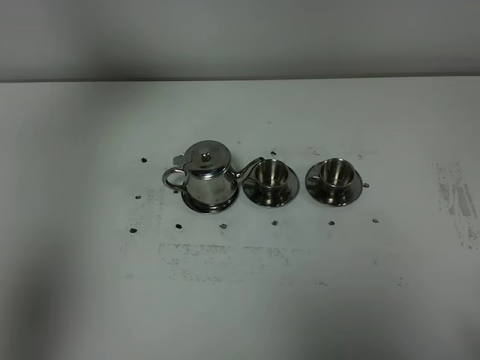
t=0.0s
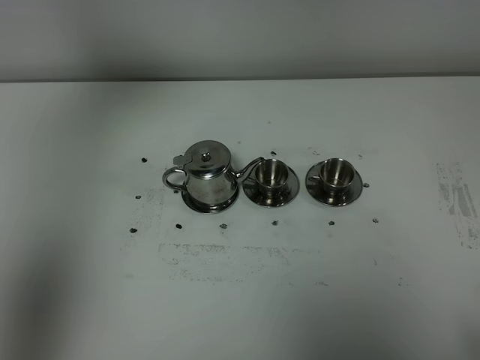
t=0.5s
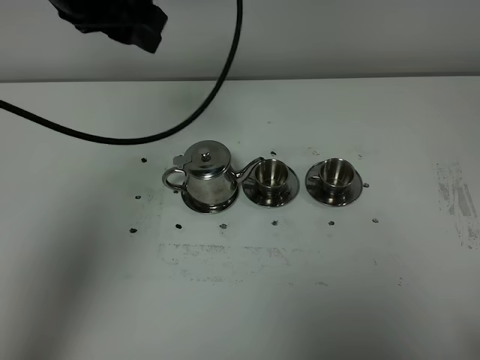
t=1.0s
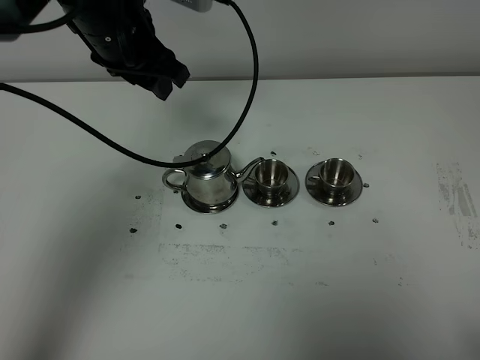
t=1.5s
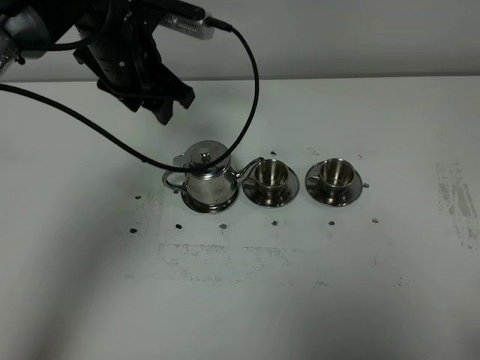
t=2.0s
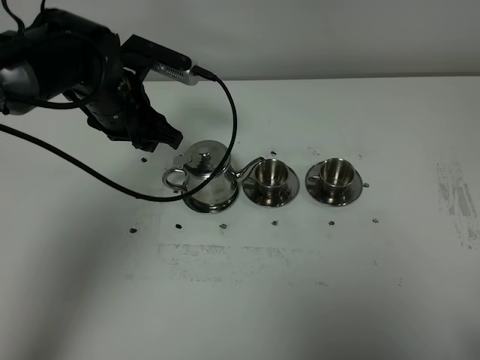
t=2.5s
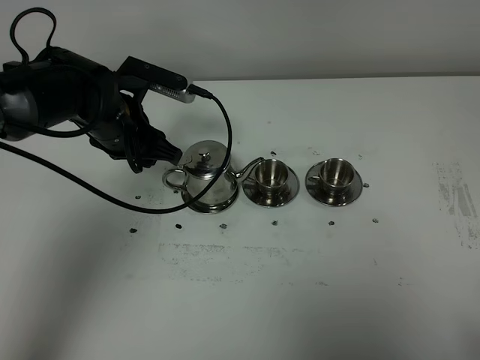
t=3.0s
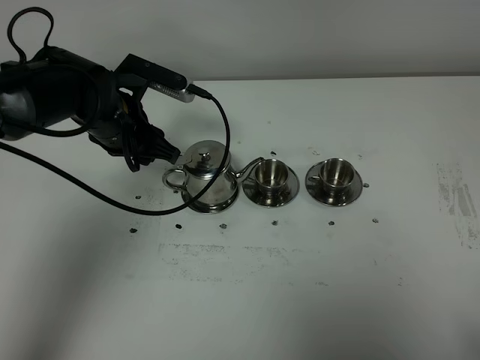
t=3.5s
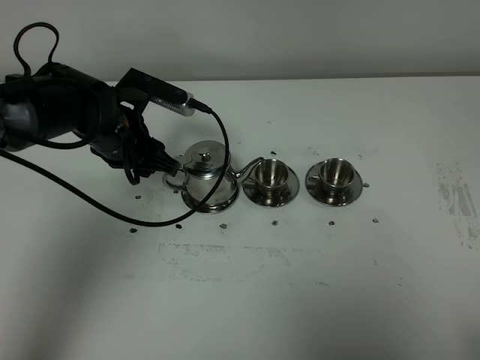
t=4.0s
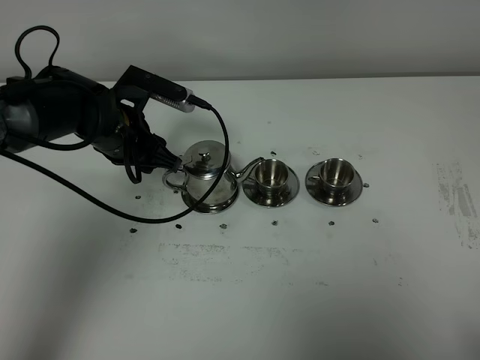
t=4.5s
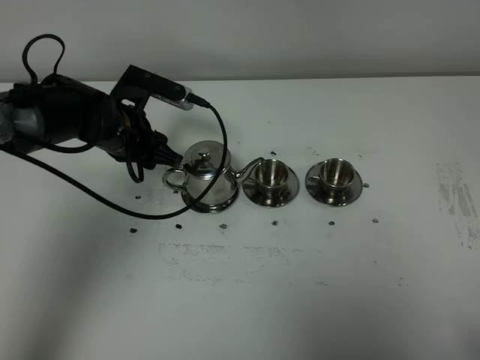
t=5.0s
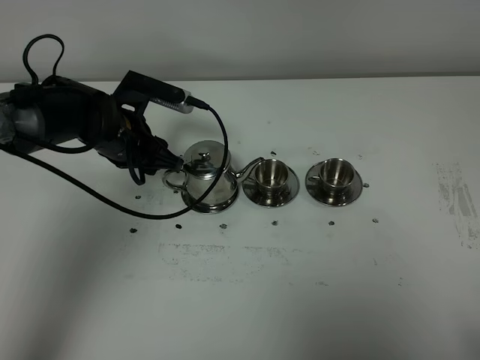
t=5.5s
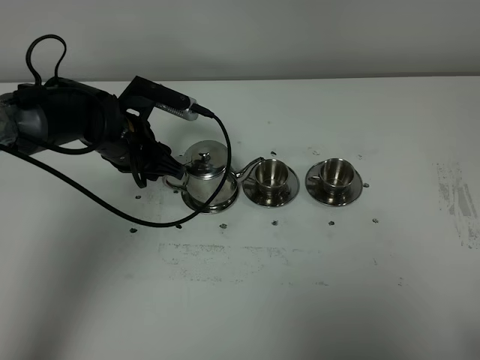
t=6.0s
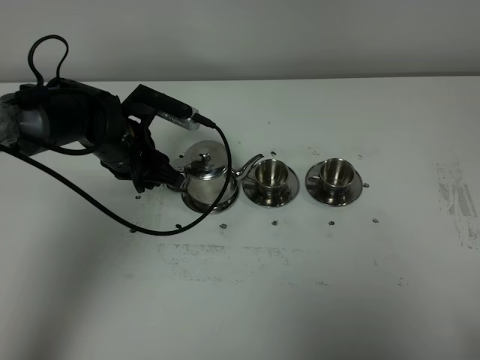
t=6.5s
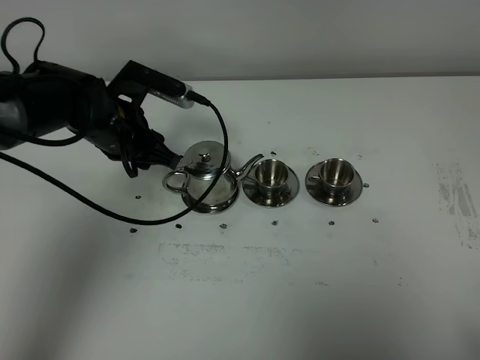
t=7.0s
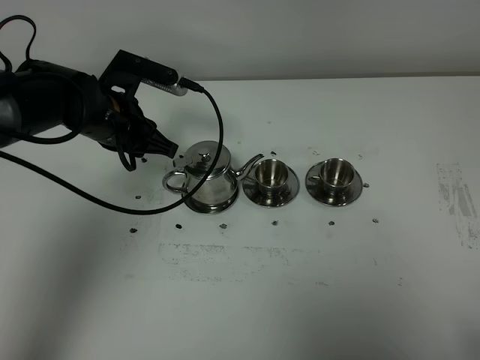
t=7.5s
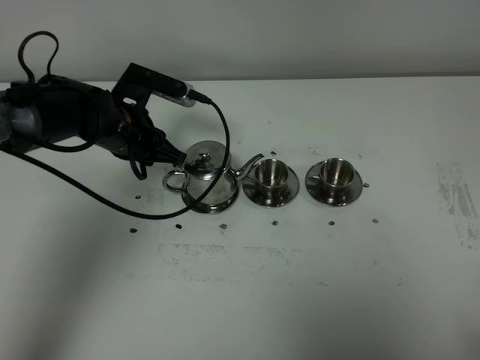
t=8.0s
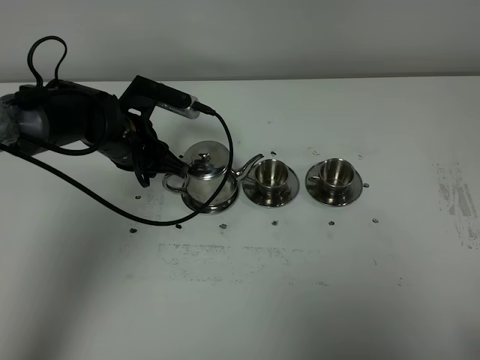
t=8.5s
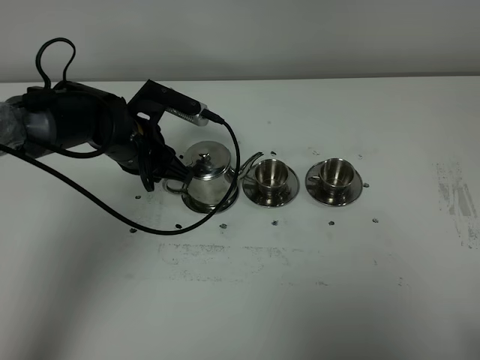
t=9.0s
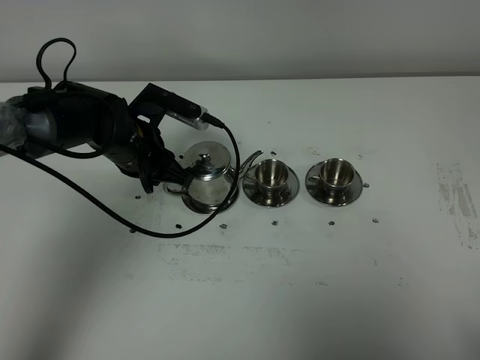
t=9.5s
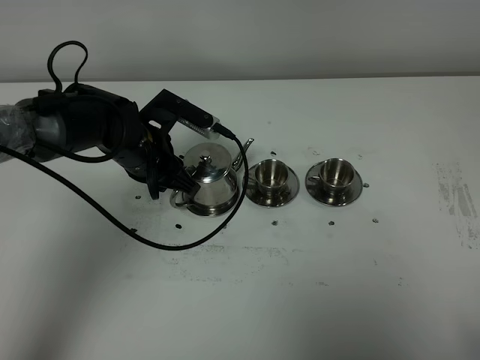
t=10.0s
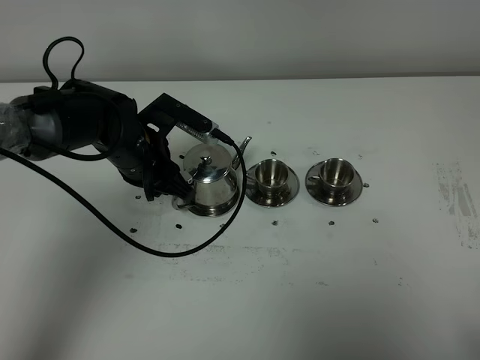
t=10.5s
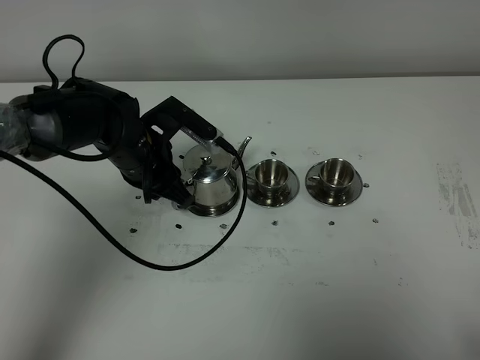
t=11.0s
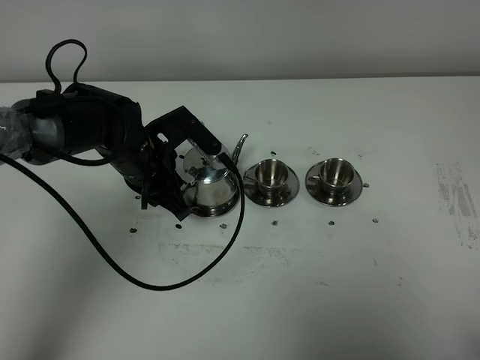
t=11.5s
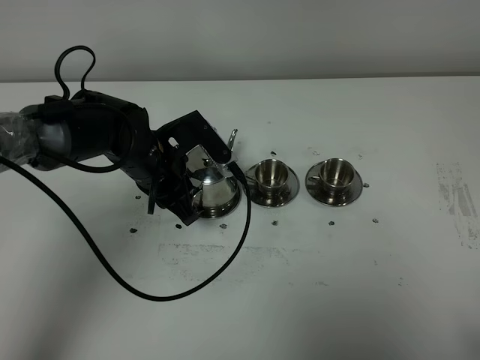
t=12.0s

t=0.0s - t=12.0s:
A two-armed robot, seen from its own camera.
Task of the whole recording: grasp the stainless steel teapot and pour the tea into the two stainless steel teacups one by one, put the stainless steel teapot back in its original place.
t=0.0s - t=2.0s: The left gripper goes some 30 cm downward, to the right and forward.
t=2.0s - t=4.0s: The left gripper moves downward, approximately 10 cm.
t=4.0s - t=6.0s: The grippers make only small movements.
t=6.0s - t=8.0s: The left gripper closes.
t=8.0s - t=10.0s: The grippers move only a little.

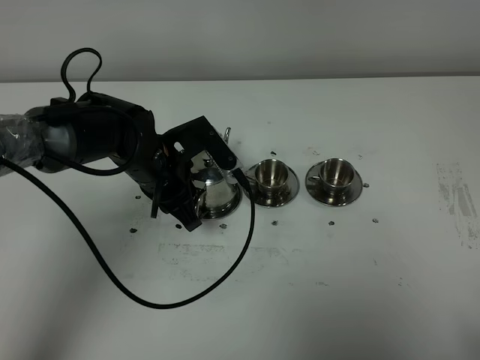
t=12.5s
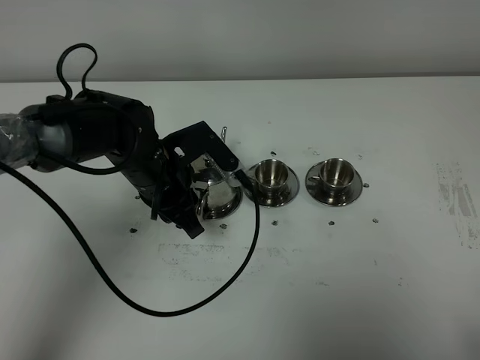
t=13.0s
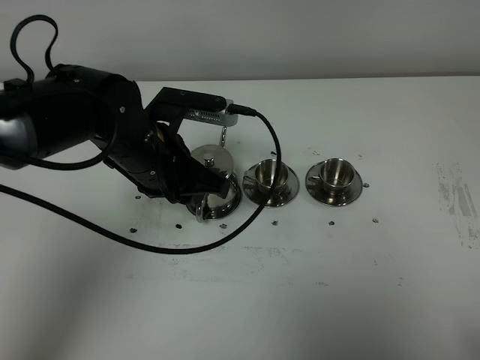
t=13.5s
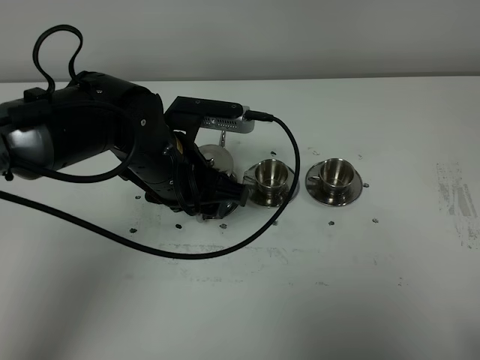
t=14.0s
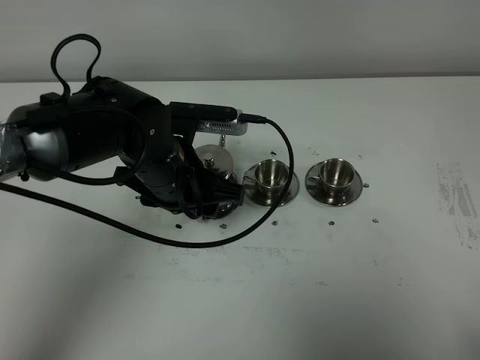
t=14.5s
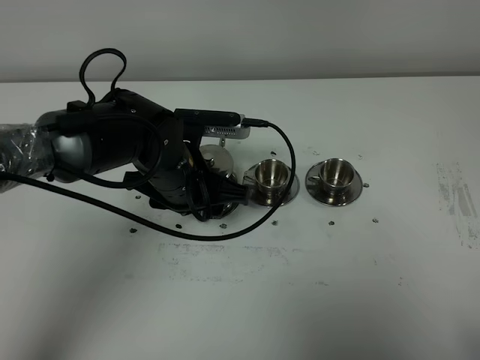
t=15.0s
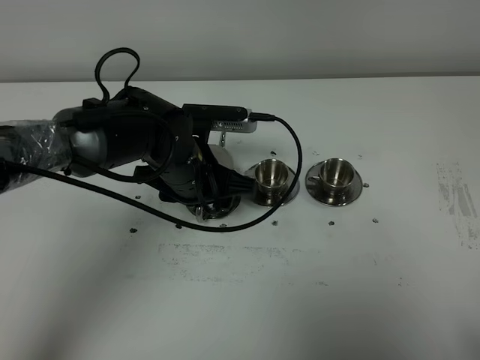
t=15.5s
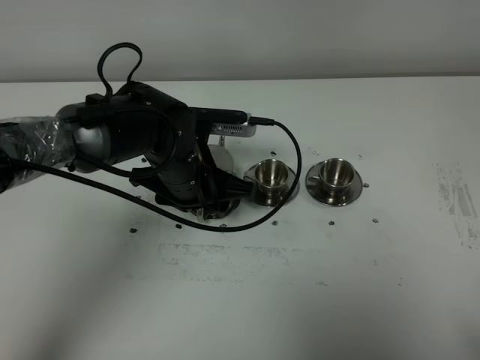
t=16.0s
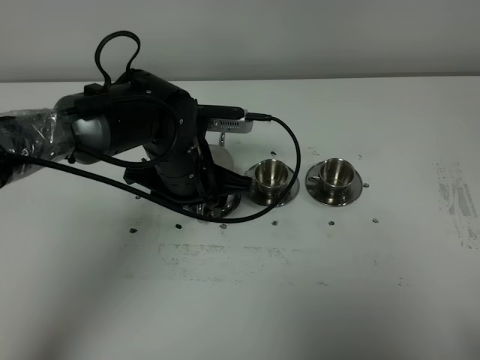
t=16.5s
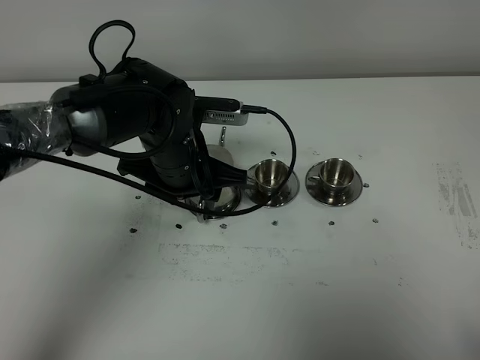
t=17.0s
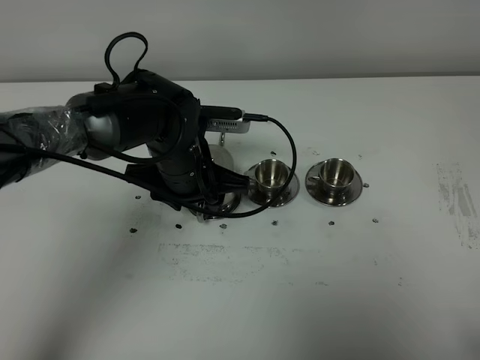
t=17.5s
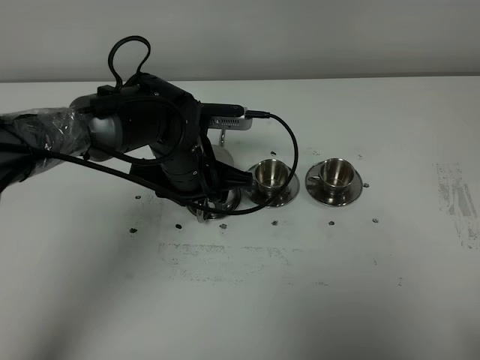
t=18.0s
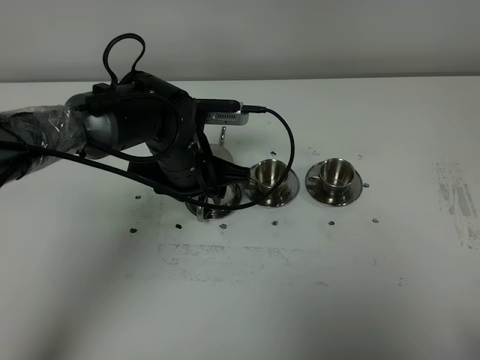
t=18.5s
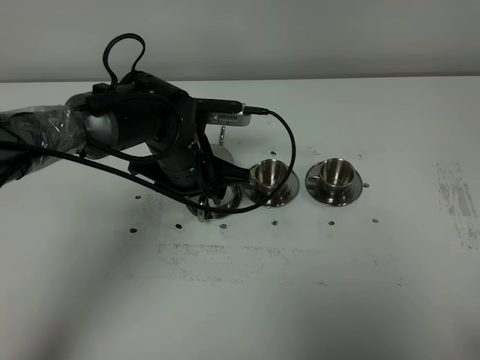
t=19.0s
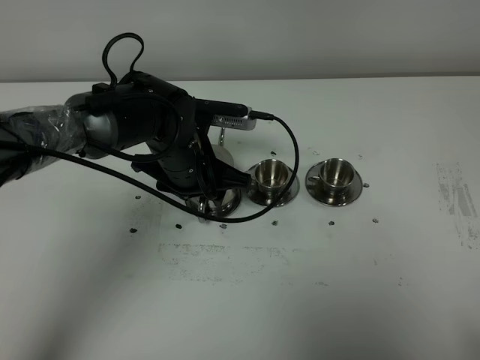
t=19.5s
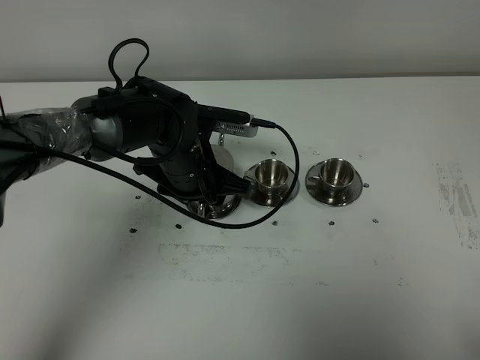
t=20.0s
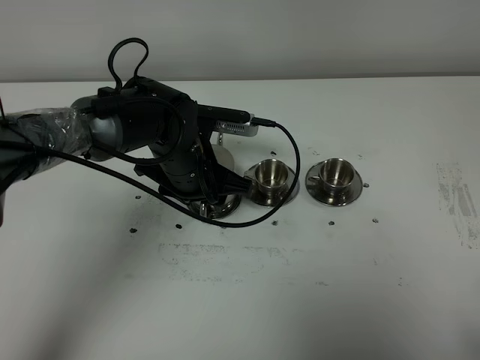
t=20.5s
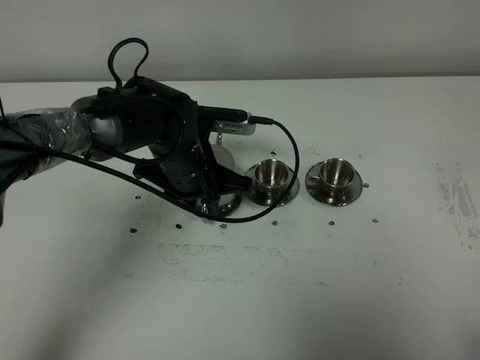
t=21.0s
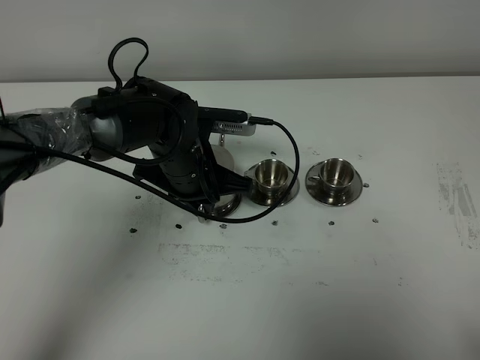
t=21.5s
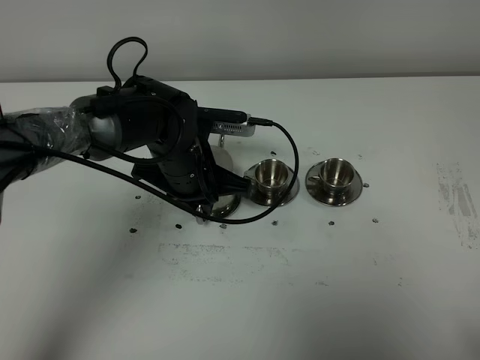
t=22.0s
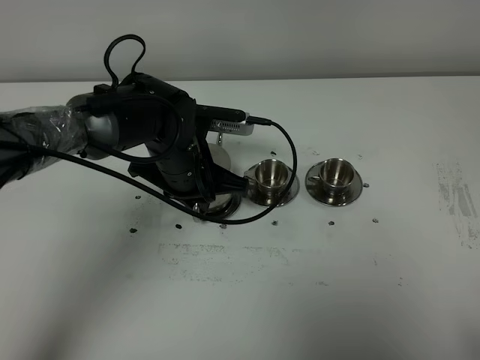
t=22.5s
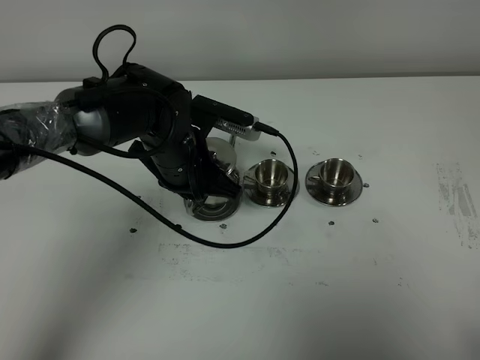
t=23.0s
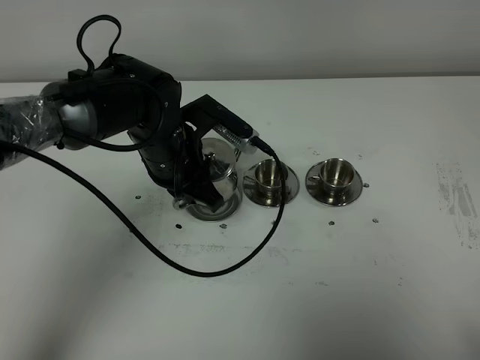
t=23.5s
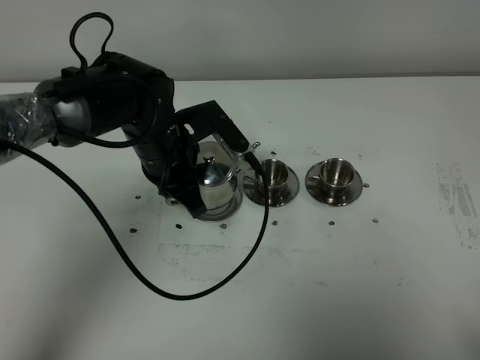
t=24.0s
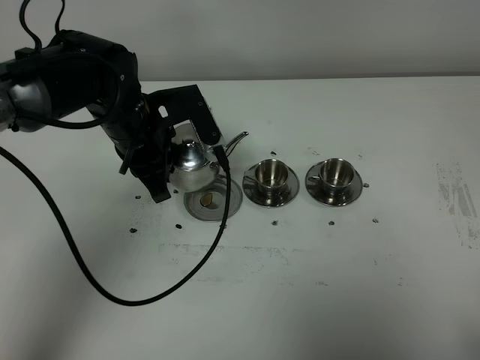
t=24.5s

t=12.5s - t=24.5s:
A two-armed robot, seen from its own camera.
Task of the whole recording: grasp the stainless steel teapot and pour the tea into the two stainless steel teacups one by one, put the stainless steel teapot back in its original place.
Step, t=12.5s - t=22.5s: Pick up the teapot with the left gripper.
t=12.5s - t=14.5s: The left gripper ends up some 5 cm from where it was, and opens up.
t=14.5s - t=18.5s: The grippers move only a little.
t=18.5s - t=20.5s: The grippers move only a little.
t=20.5s - t=22.5s: The left gripper closes.
t=22.5s - t=24.5s: The left gripper is displaced to the left by about 5 cm.

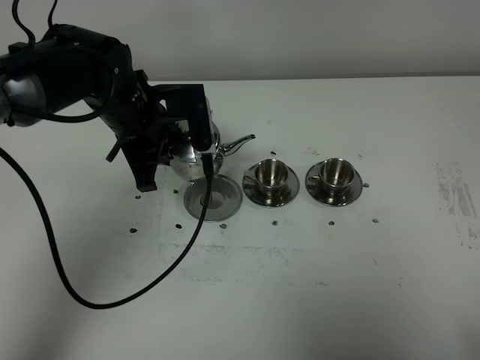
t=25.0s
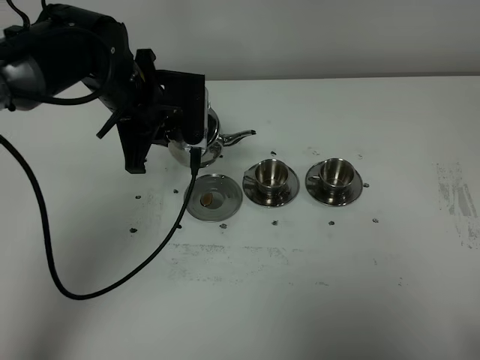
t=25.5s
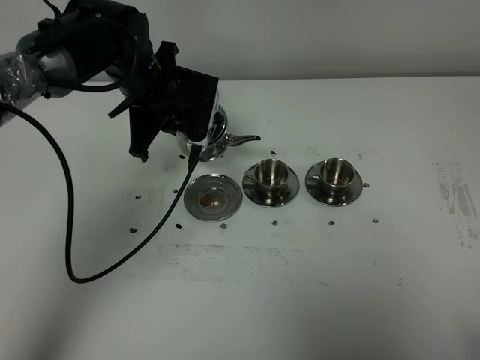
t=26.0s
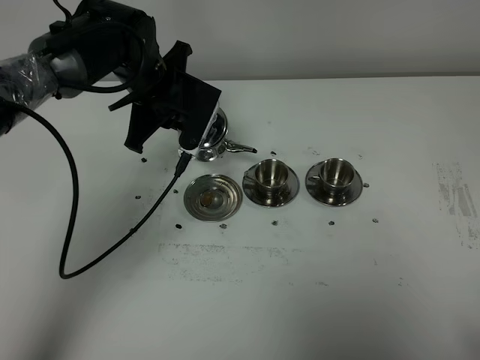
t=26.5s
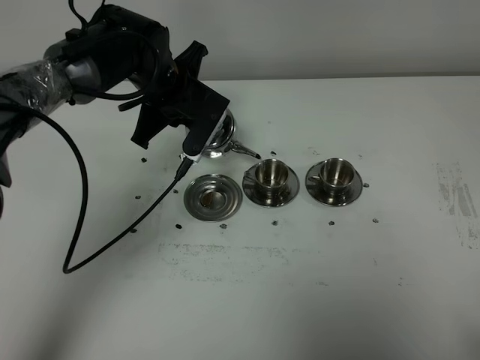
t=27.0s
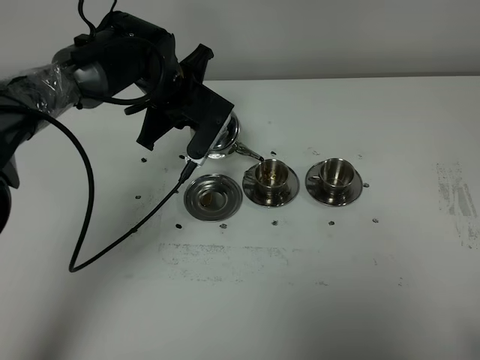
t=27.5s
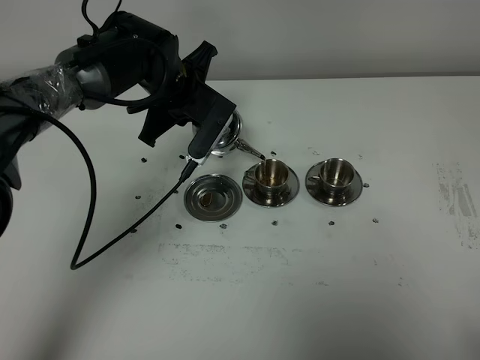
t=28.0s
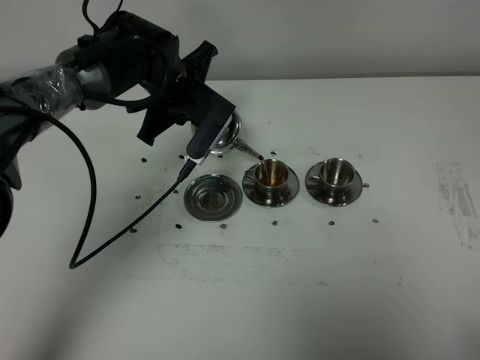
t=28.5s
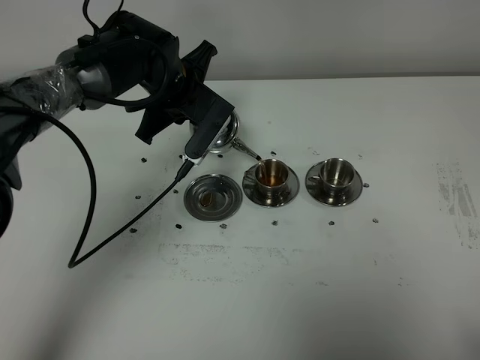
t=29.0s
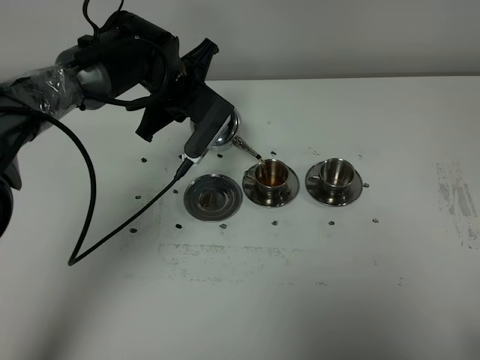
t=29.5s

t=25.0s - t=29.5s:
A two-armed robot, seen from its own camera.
Task of the whole recording: grasp the stainless steel teapot and pour the tea into the two stainless steel teacups one by one, put the stainless steel teapot back in its original place.
t=25.0s - t=27.0s: The left gripper goes approximately 5 cm forward.
t=27.0s - t=29.5s: The grippers make only small movements.
